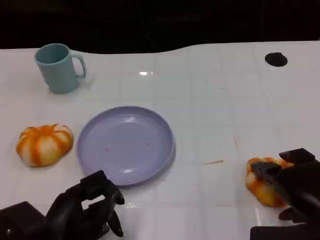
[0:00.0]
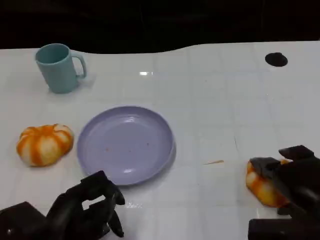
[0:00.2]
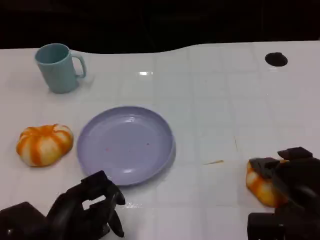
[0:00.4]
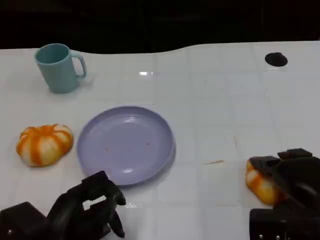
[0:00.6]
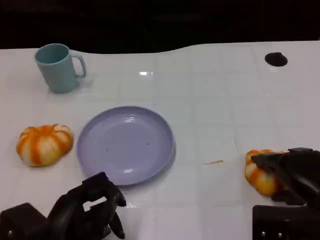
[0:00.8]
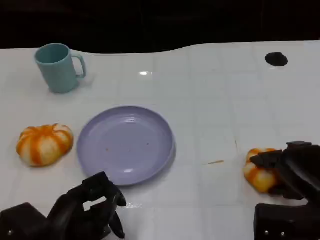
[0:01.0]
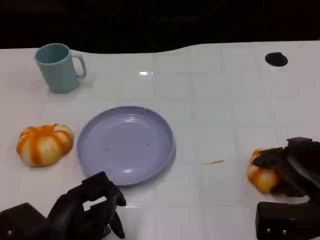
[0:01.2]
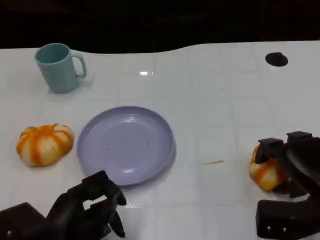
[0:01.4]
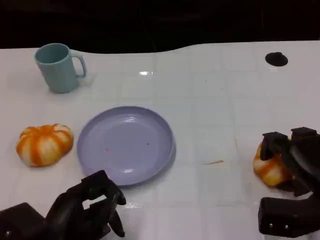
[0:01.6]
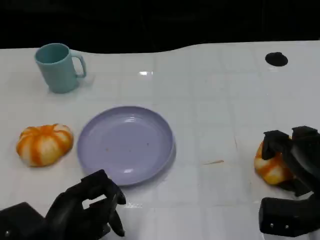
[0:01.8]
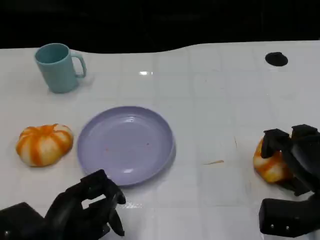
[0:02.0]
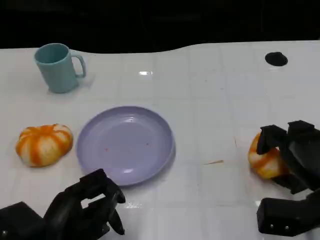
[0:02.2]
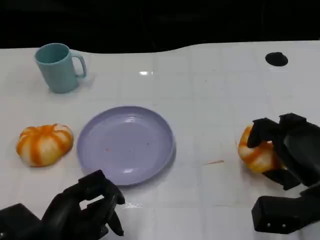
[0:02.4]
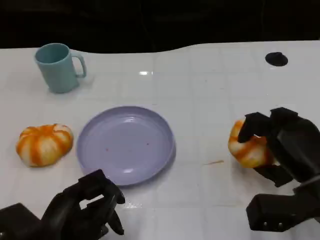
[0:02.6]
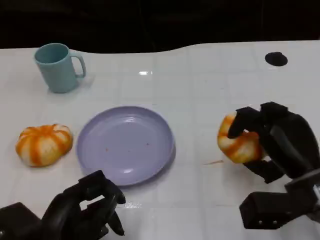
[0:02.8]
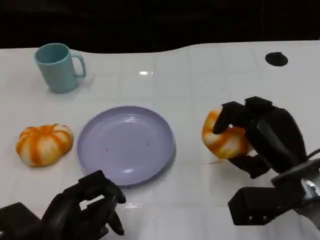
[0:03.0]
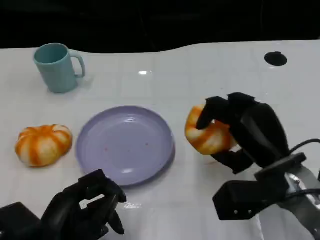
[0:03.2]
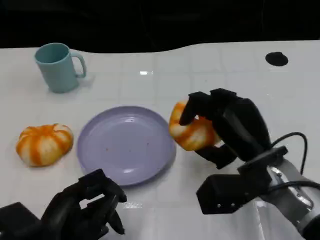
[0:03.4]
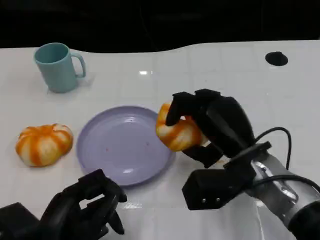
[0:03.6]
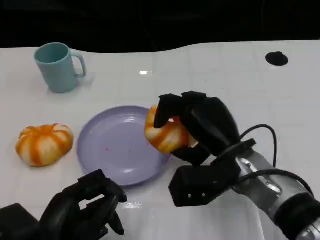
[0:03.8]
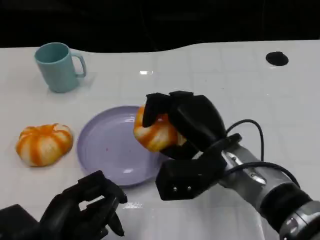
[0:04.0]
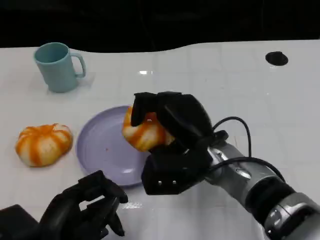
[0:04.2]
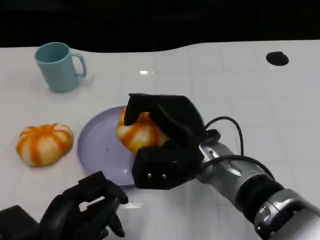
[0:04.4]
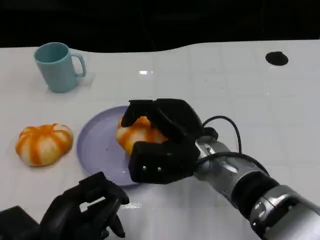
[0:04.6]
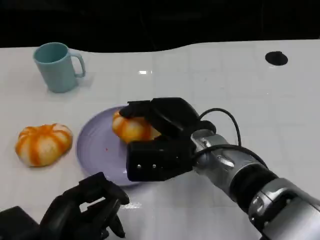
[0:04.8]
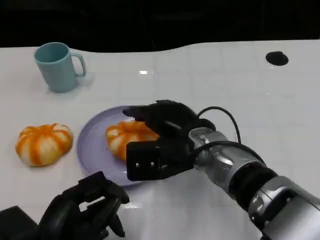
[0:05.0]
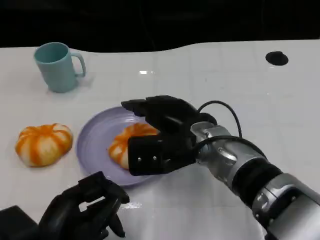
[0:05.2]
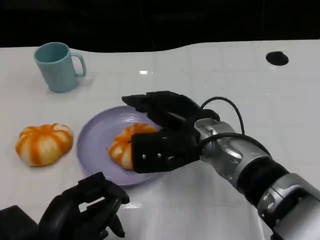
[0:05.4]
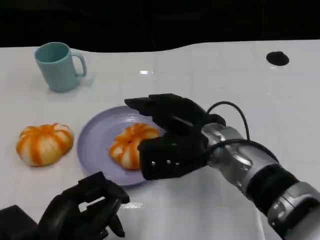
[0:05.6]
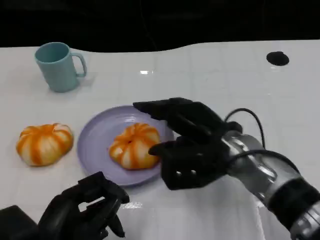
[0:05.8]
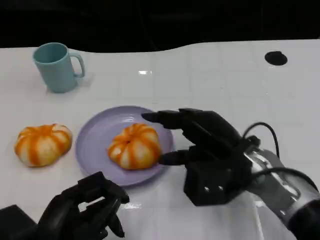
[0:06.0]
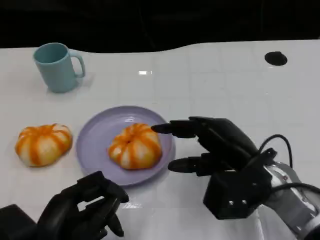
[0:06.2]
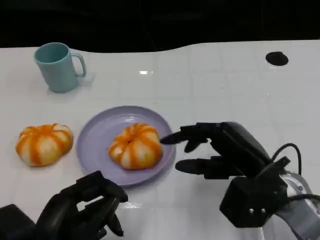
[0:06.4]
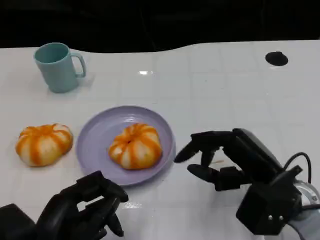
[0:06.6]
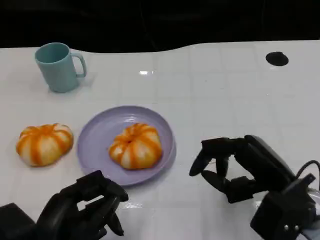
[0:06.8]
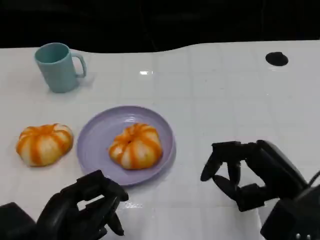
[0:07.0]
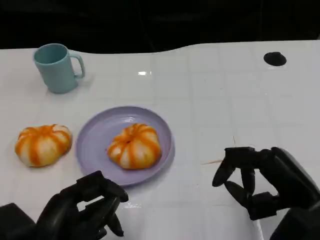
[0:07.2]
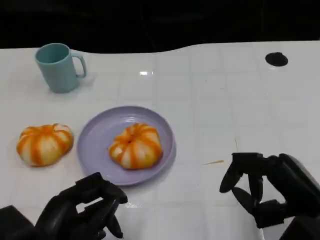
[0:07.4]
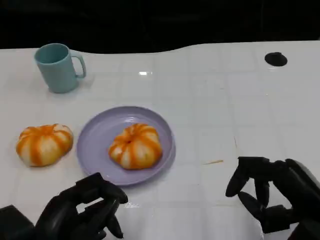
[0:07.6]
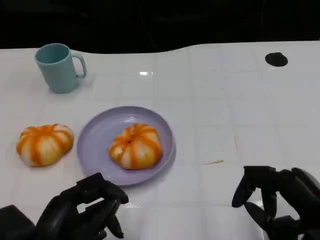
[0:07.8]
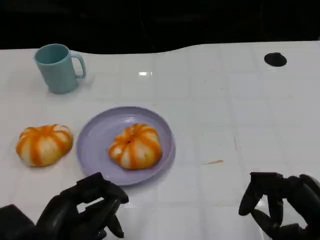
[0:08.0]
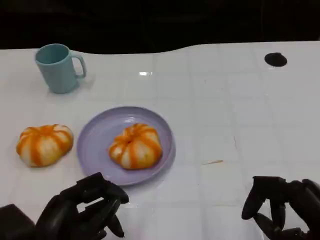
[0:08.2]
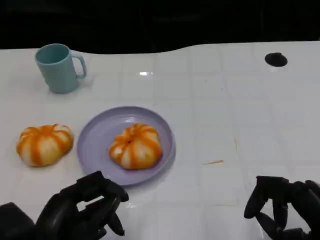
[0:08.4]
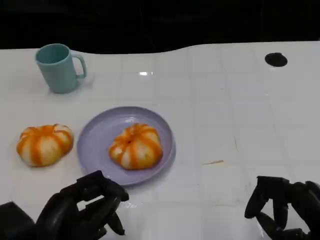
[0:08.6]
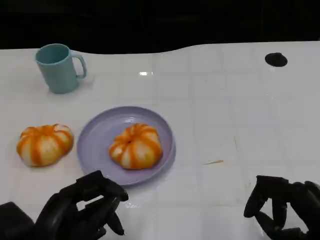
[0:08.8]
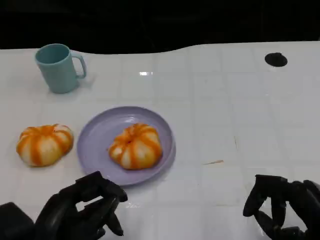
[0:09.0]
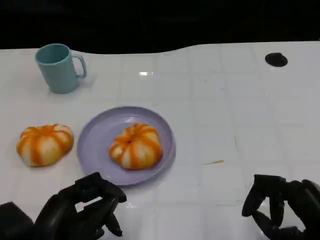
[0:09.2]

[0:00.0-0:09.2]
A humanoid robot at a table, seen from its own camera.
Task of the whole recording: Grasp the bread from the table and place it into the plate.
0:00.0 to 0:01.6: The right hand moves some 5 cm.
0:01.6 to 0:03.0: The right hand travels to the left by approximately 5 cm.
0:03.0 to 0:04.6: The right hand shifts about 15 cm to the left.
0:04.6 to 0:06.2: The right hand is displaced to the right by roughly 10 cm.
0:06.2 to 0:07.6: The right hand travels backward and to the right by some 10 cm.
0:07.6 to 0:09.2: There are only small adjustments of the hands.

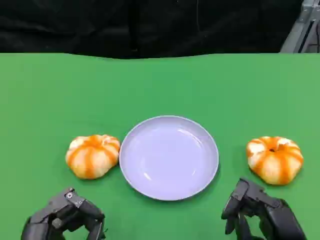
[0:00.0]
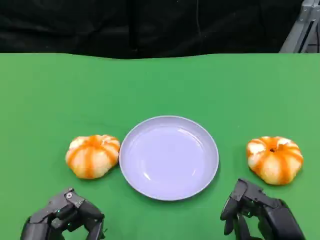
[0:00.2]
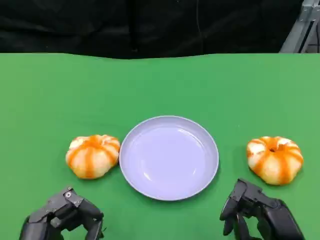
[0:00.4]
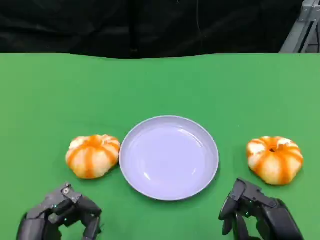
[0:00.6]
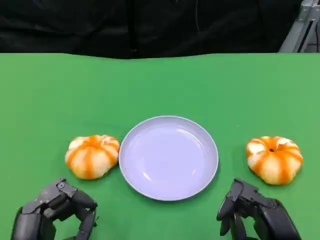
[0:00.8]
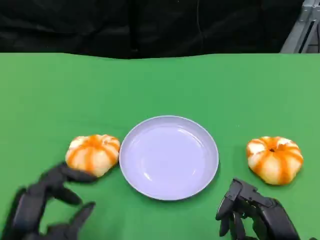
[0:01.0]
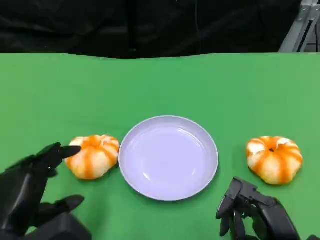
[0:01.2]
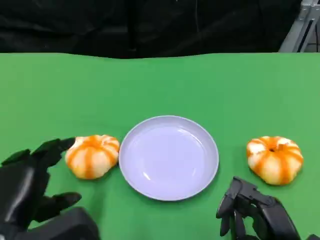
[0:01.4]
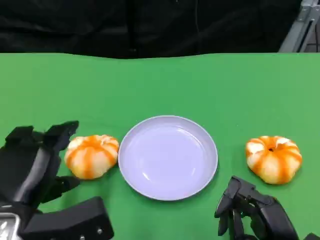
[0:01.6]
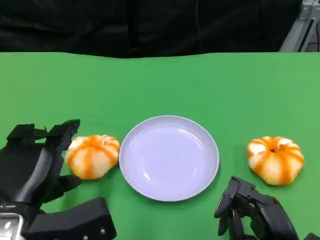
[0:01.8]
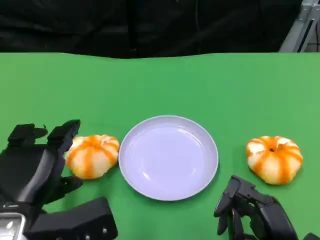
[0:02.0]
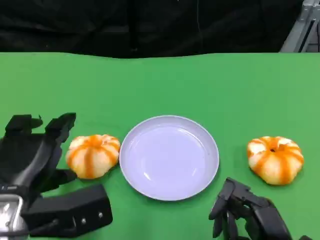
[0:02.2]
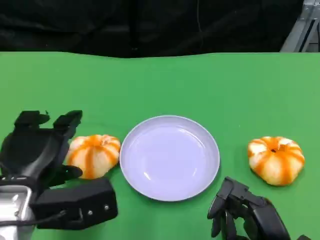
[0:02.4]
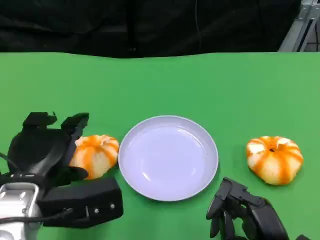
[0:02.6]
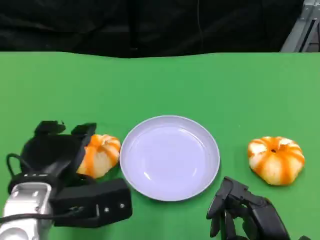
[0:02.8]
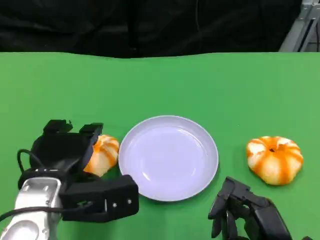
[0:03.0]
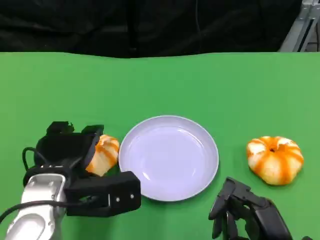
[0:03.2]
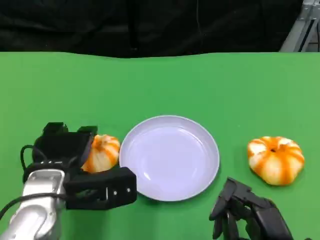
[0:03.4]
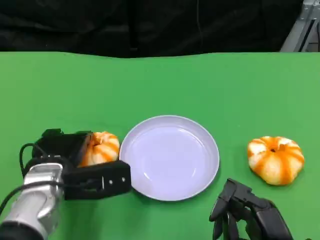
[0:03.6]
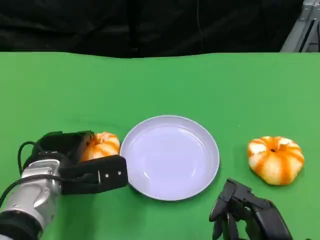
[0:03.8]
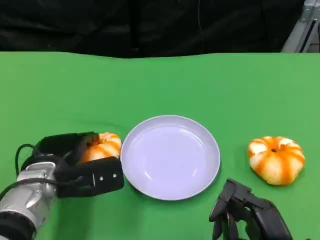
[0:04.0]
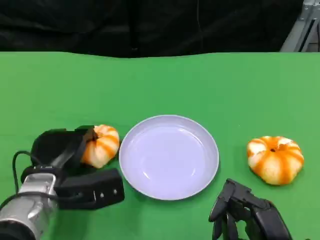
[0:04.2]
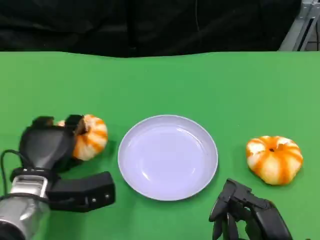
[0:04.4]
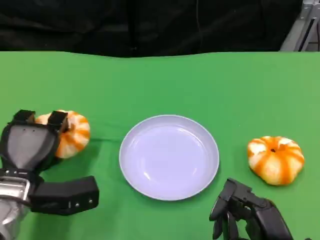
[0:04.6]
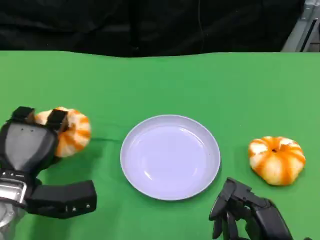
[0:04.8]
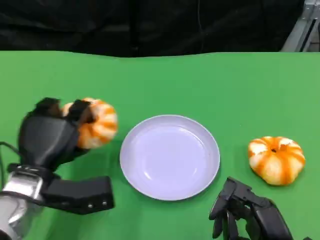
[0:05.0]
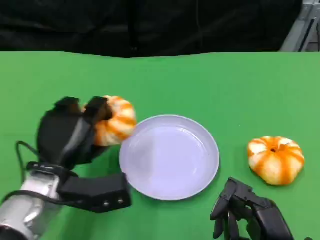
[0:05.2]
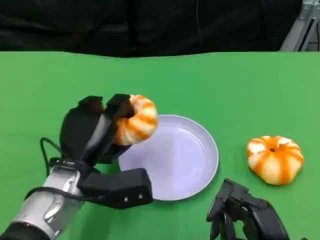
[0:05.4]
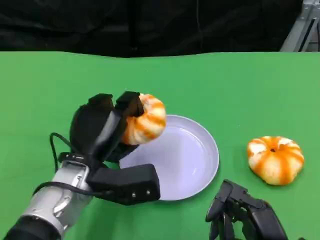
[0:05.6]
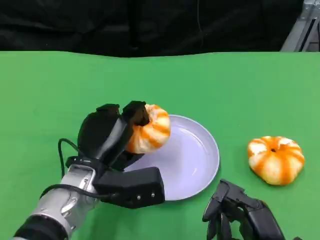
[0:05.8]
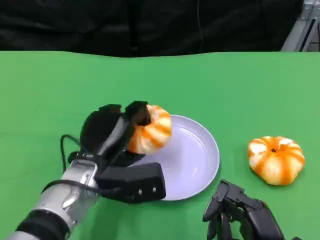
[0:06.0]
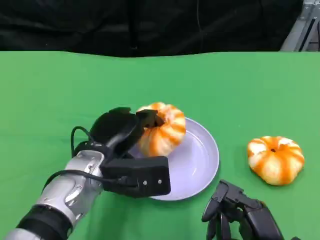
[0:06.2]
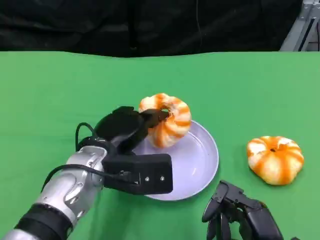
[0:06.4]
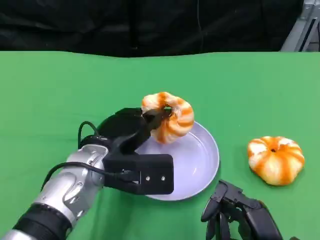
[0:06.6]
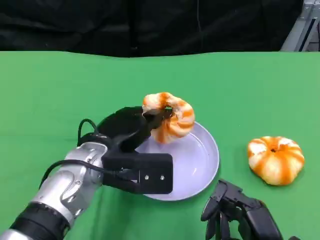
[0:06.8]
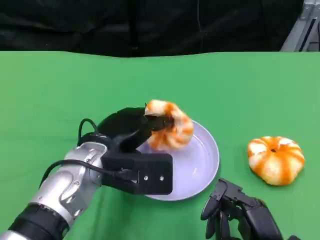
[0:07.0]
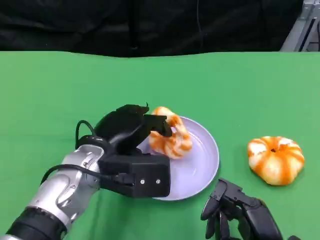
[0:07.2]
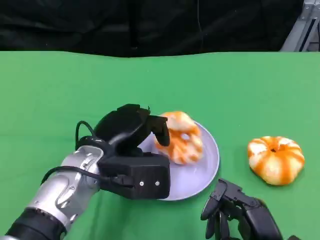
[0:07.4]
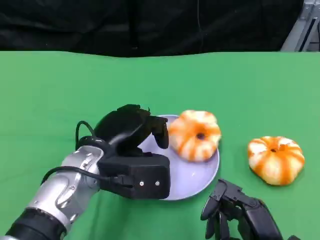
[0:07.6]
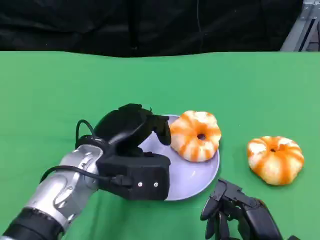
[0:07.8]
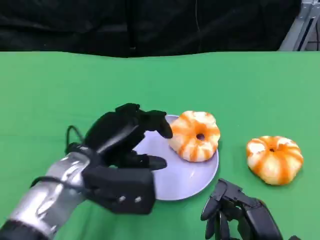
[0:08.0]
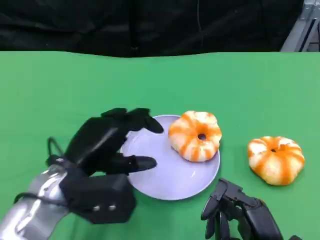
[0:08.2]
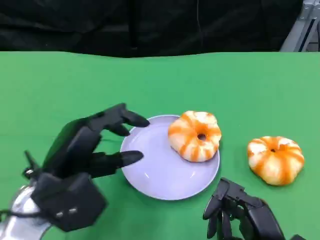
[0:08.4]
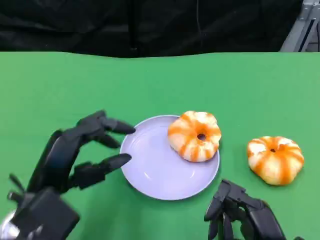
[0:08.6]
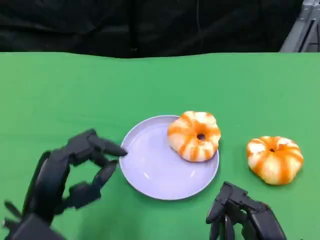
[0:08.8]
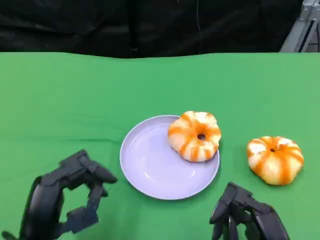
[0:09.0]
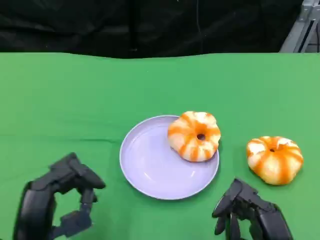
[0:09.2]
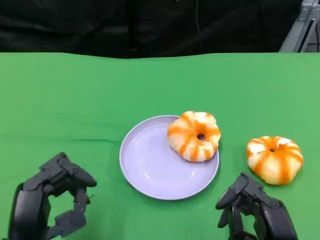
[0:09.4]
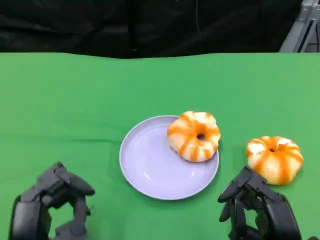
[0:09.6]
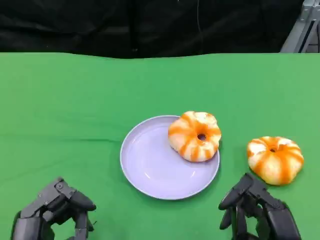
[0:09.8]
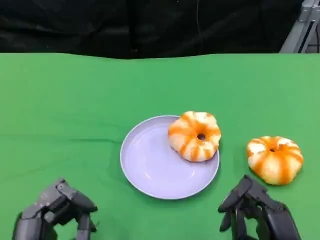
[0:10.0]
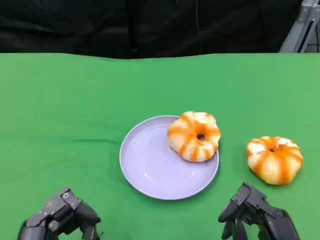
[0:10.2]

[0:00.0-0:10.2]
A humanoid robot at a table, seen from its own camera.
Task of the whole recording: Grasp the bread from the table and place it into the plate.
0:00.0 to 0:01.4: The left hand moves upward and forward, about 10 cm.
0:01.4 to 0:03.0: The left hand goes some 5 cm forward.
0:03.0 to 0:04.4: The left hand moves downward, approximately 5 cm.
0:04.4 to 0:05.8: The left hand goes some 10 cm to the right.
0:07.2 to 0:08.8: The left hand shifts approximately 15 cm backward and to the left.
0:08.8 to 0:10.2: The left hand goes about 5 cm backward.

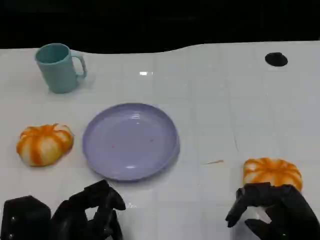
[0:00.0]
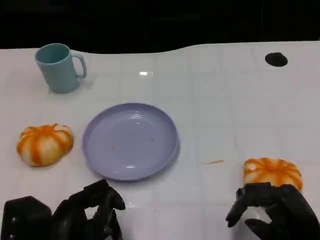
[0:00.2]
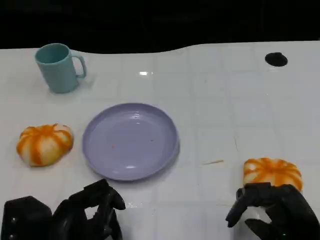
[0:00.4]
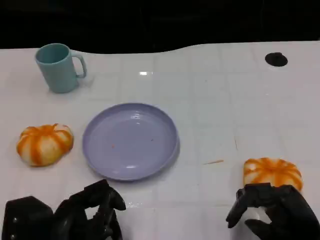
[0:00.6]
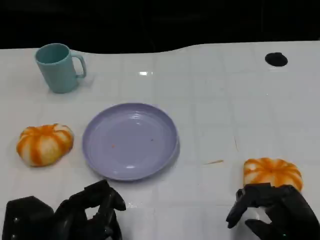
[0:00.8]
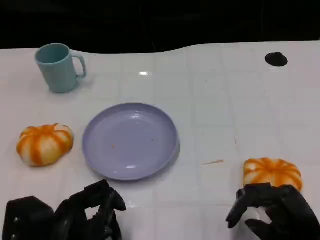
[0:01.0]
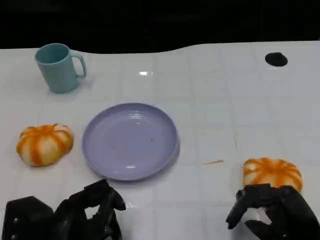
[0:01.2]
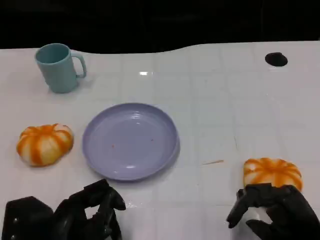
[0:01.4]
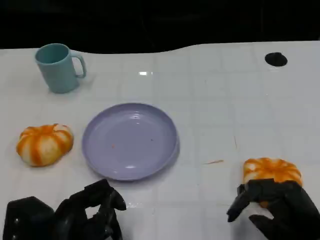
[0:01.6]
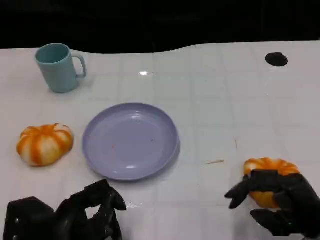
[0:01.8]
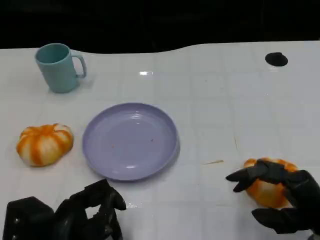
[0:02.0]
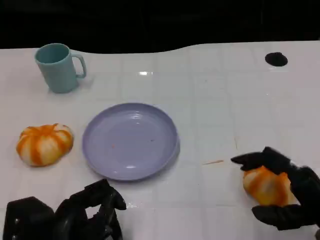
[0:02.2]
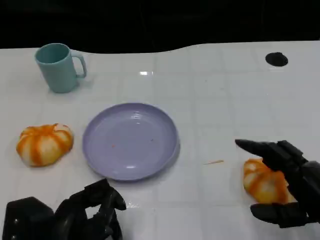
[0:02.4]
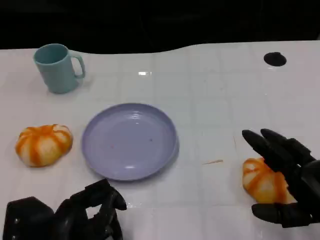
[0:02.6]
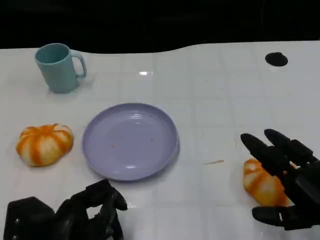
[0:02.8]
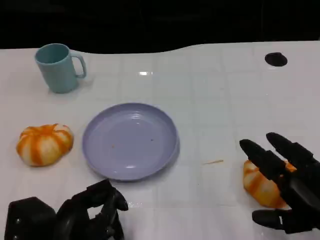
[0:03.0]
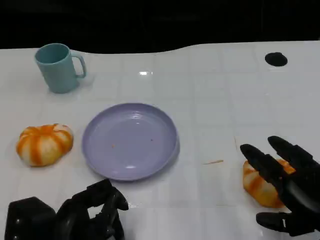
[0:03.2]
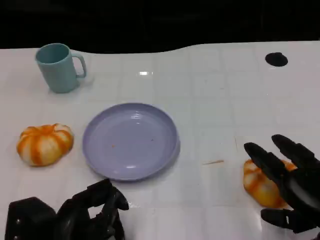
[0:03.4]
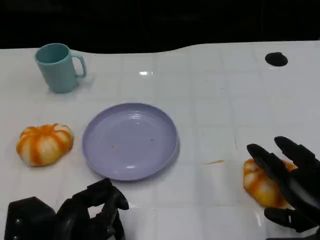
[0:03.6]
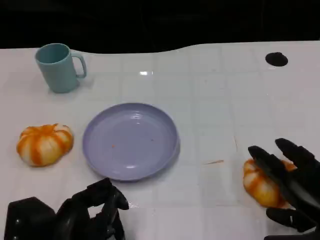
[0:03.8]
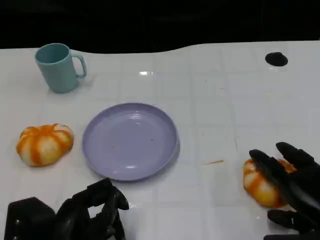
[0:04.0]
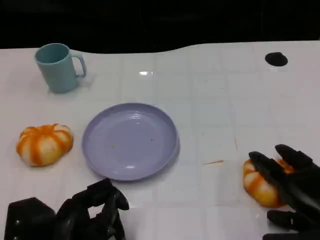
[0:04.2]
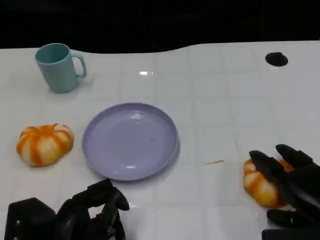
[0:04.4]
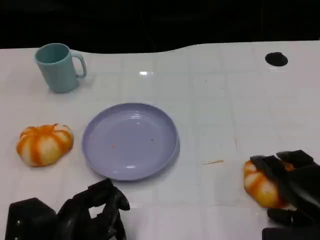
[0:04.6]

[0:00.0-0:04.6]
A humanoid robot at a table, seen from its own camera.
Task of the whole recording: Grasp the bread from the table and place it into the plate.
0:00.0 to 0:01.6: The two hands keep their place.
0:01.6 to 0:03.0: The right hand shifts some 5 cm upward.
0:03.0 to 0:04.6: The right hand ends up about 5 cm from where it was.
